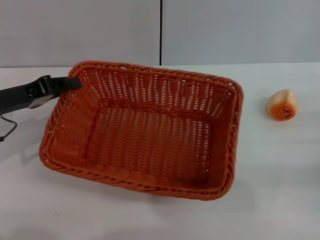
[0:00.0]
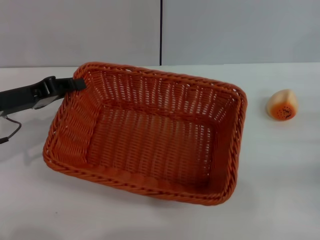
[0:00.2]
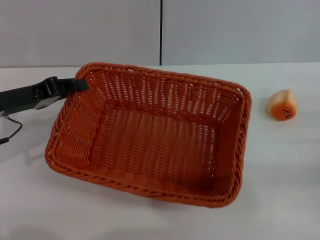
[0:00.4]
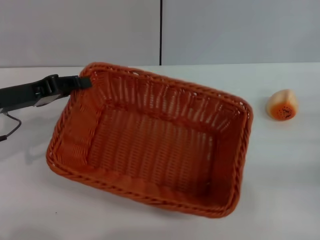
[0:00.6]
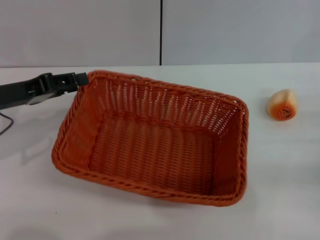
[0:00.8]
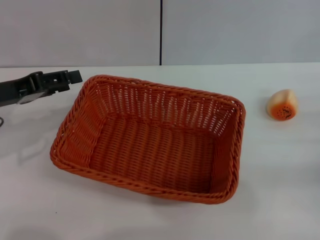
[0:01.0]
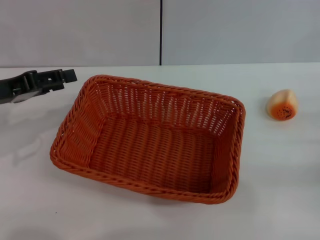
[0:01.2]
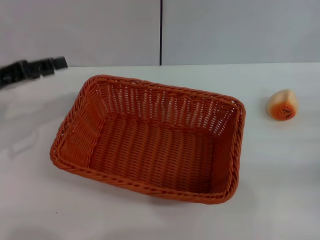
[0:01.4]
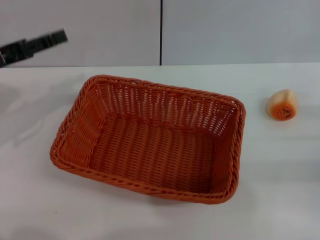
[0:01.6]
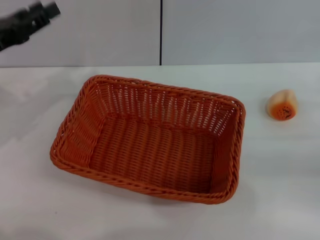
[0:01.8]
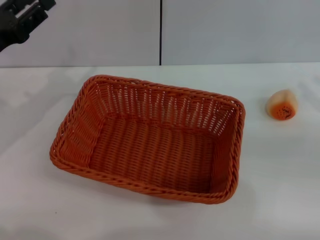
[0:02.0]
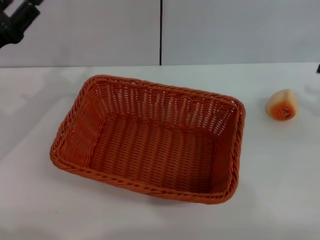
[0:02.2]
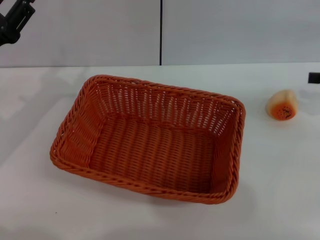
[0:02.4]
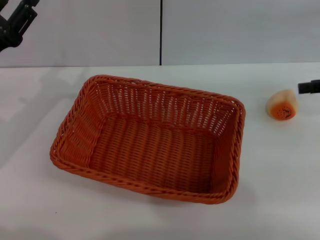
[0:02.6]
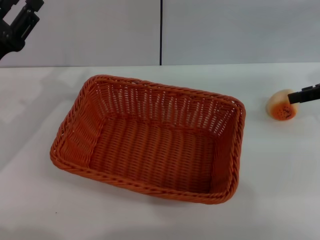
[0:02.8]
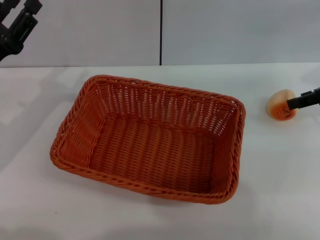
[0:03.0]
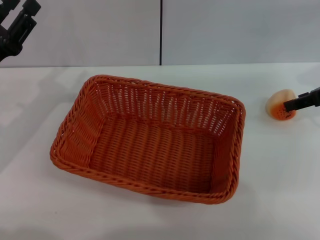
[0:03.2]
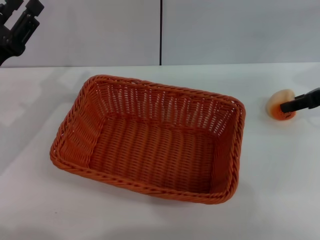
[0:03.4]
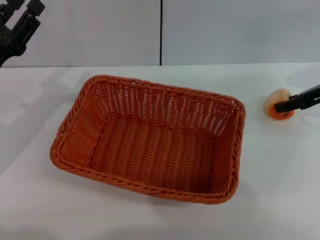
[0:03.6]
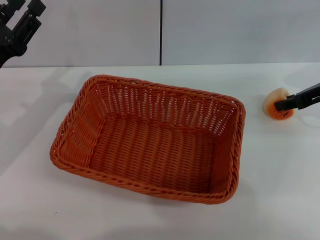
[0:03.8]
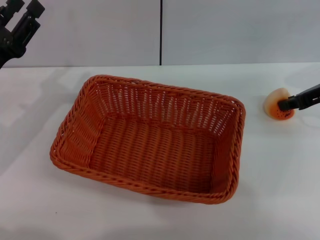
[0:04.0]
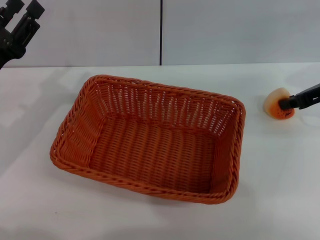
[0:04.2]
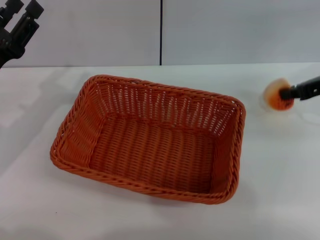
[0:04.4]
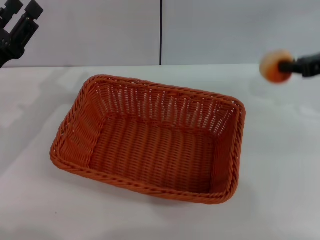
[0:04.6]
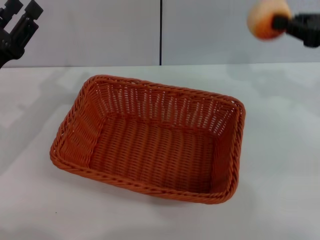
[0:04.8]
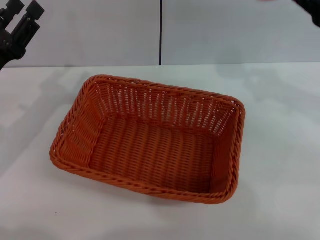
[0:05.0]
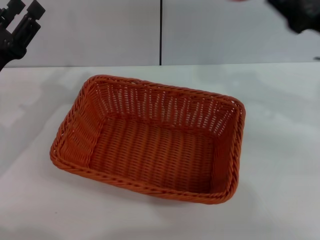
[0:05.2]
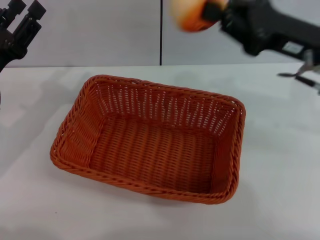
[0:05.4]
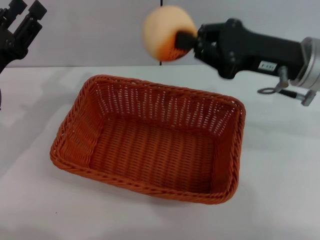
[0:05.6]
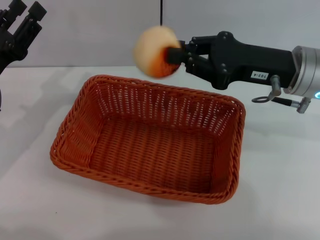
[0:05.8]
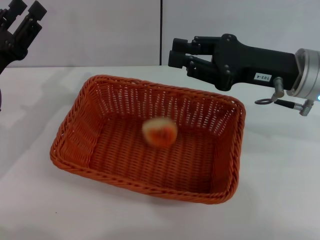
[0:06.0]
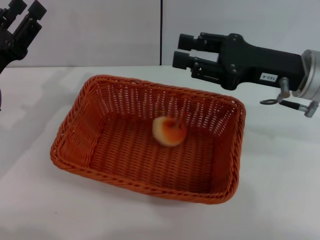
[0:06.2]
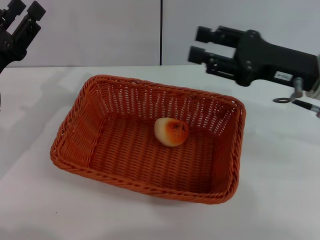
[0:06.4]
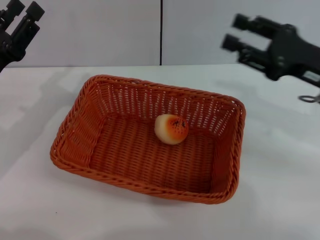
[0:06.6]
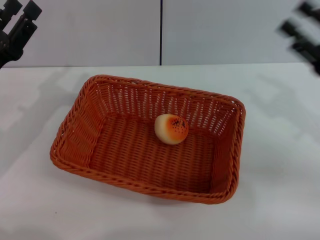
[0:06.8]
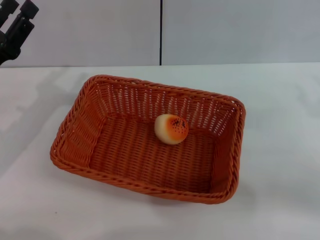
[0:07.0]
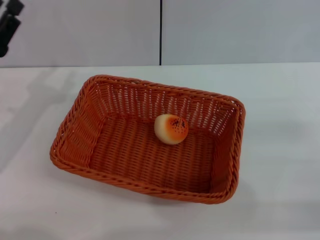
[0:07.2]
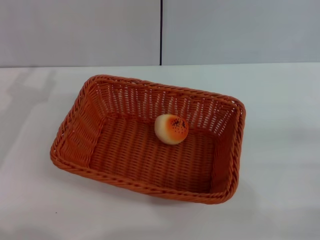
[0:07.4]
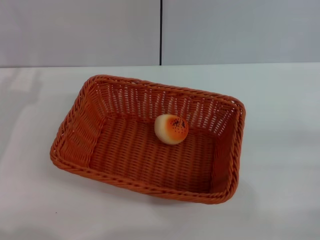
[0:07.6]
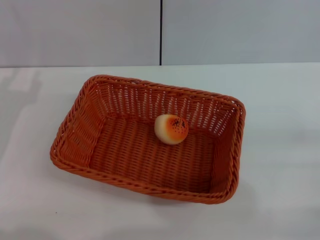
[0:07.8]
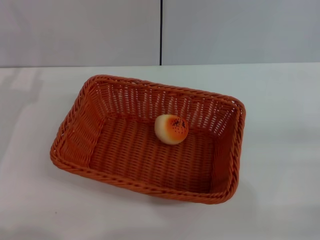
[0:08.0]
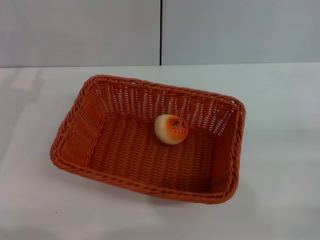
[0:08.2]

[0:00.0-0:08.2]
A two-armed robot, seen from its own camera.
Step, 1.0 to 4.0 s: Grasp egg yolk pastry with right gripper.
Step, 4.4 to 6.0 s: Place the egg yolk pastry in the basket with right gripper.
0.0 to 1.6 s: The left gripper opens.
1.6 to 3.2 s: The right gripper travels forward and upward by some 15 cm, while the left gripper goes about 5 cm downward.
3.2 to 5.0 s: The right gripper heads backward, covering roughly 5 cm, and closes up.
5.0 to 6.6 s: The right gripper travels downward by some 5 cm, moves about 10 cm to the left and comes back, and opens up.
6.6 to 8.2 s: The right gripper heads backward, to the right and downward, covering approximately 15 cm.

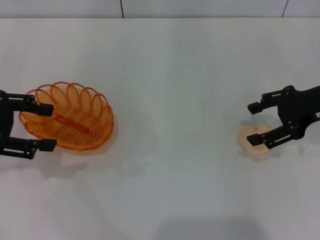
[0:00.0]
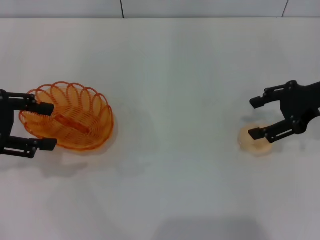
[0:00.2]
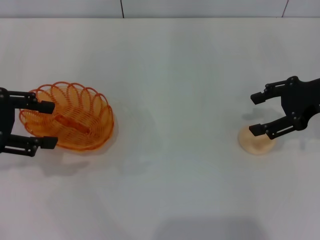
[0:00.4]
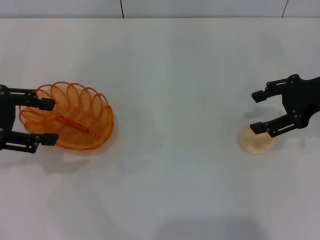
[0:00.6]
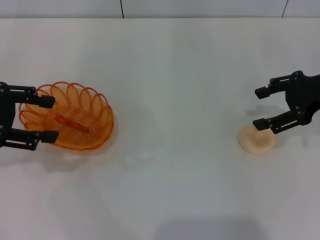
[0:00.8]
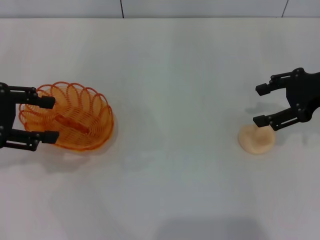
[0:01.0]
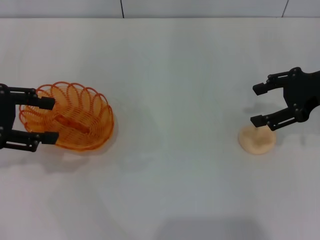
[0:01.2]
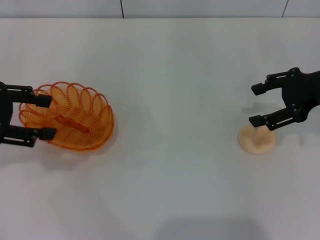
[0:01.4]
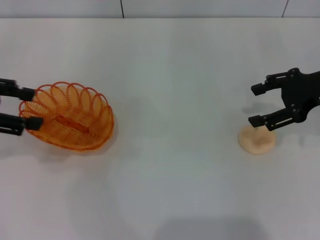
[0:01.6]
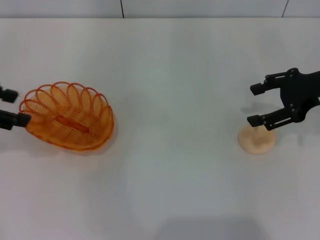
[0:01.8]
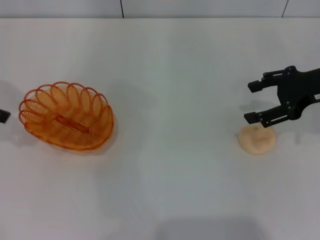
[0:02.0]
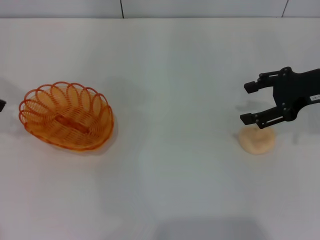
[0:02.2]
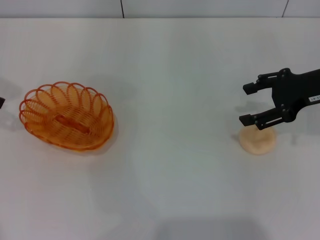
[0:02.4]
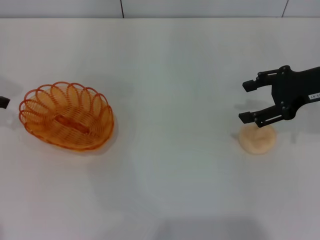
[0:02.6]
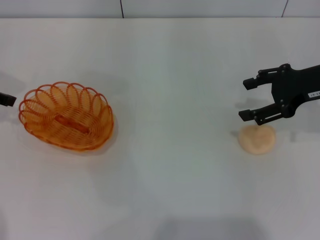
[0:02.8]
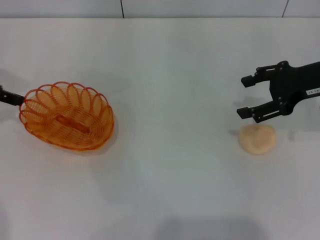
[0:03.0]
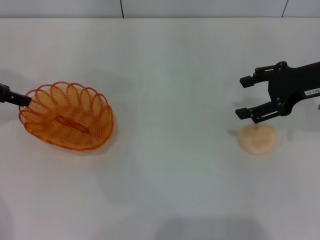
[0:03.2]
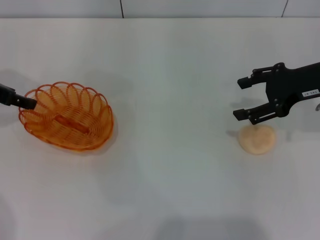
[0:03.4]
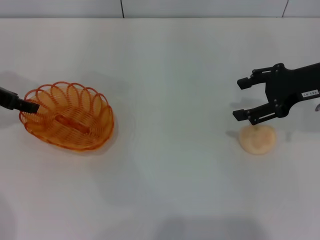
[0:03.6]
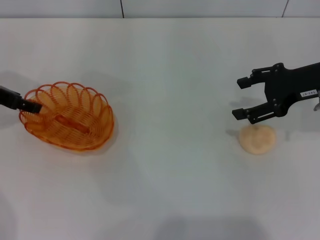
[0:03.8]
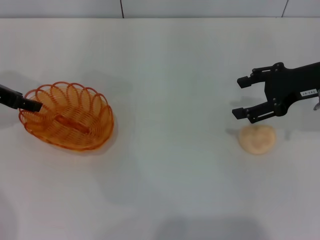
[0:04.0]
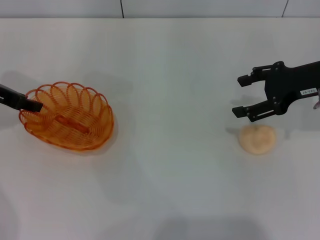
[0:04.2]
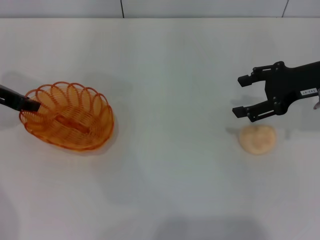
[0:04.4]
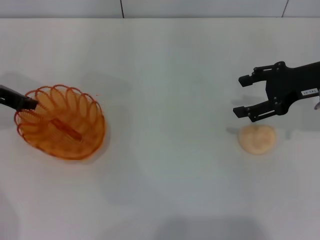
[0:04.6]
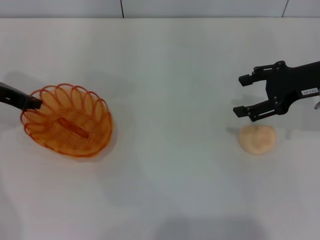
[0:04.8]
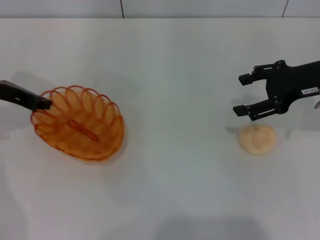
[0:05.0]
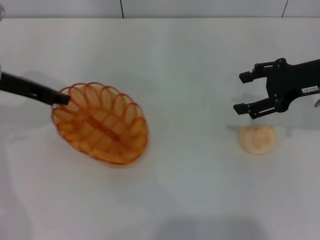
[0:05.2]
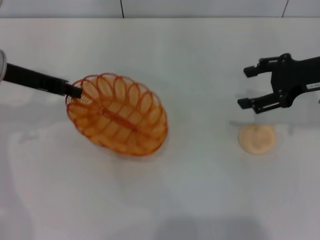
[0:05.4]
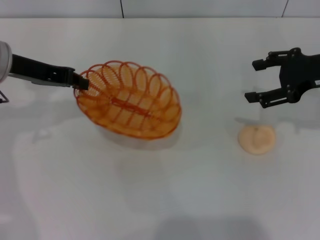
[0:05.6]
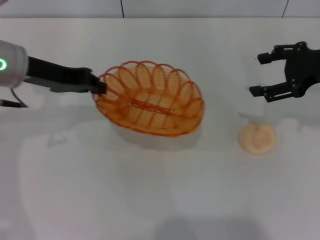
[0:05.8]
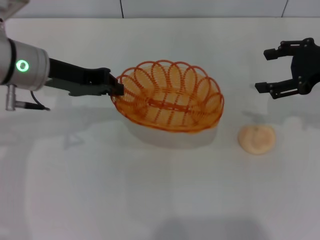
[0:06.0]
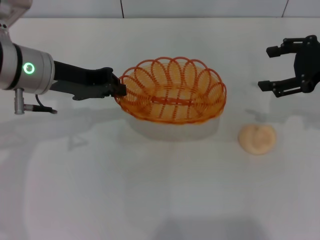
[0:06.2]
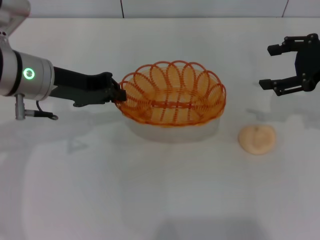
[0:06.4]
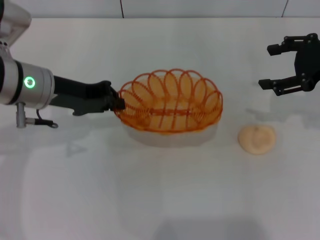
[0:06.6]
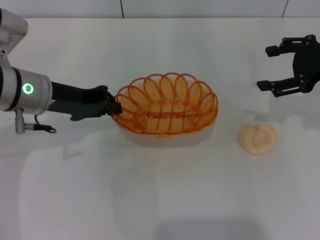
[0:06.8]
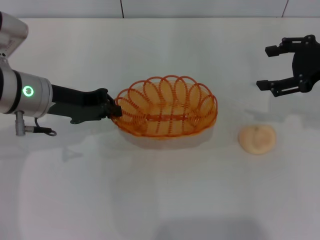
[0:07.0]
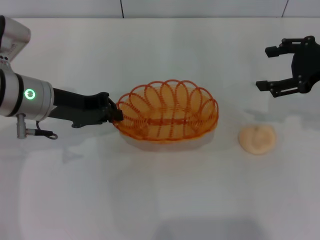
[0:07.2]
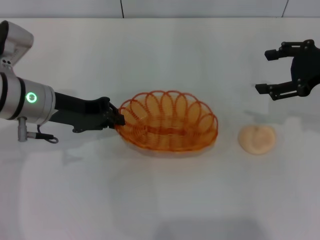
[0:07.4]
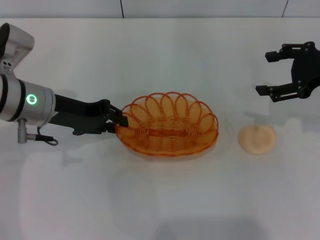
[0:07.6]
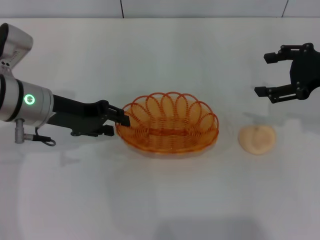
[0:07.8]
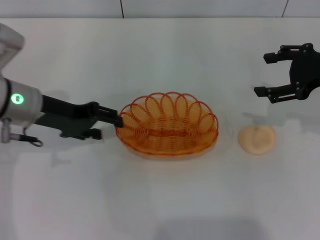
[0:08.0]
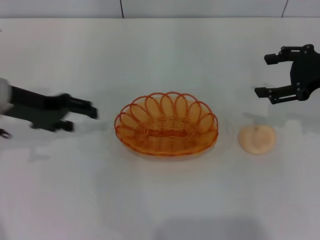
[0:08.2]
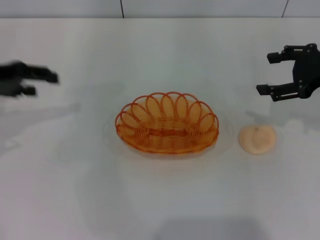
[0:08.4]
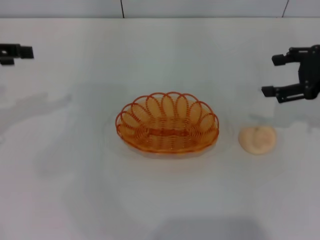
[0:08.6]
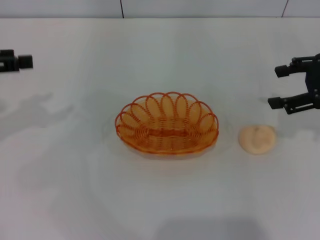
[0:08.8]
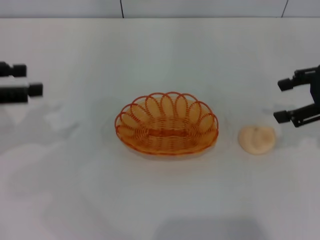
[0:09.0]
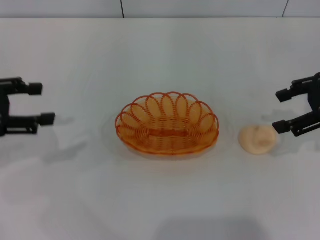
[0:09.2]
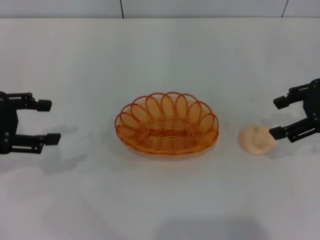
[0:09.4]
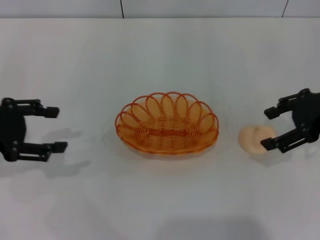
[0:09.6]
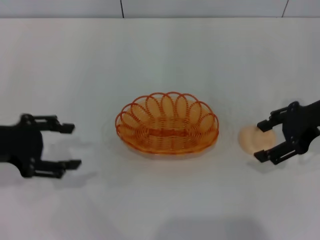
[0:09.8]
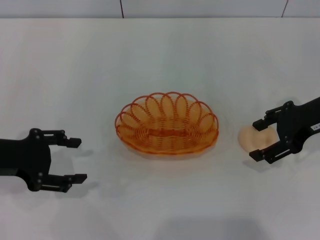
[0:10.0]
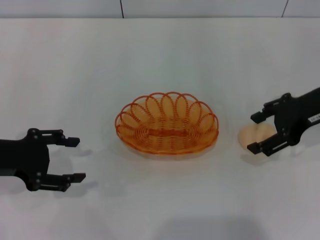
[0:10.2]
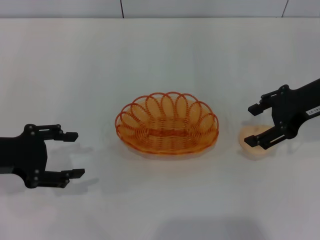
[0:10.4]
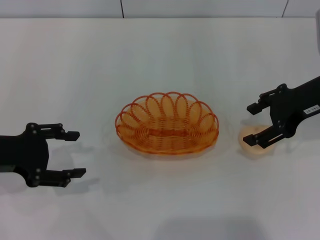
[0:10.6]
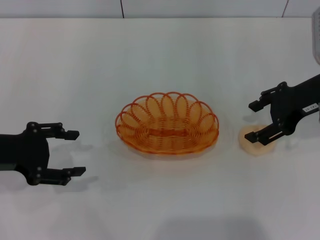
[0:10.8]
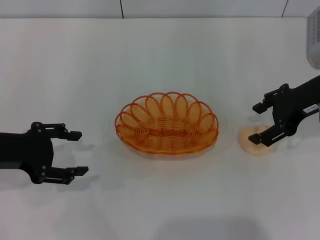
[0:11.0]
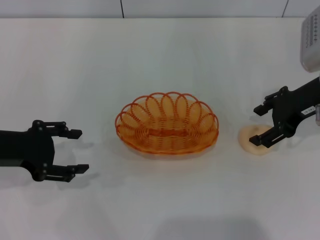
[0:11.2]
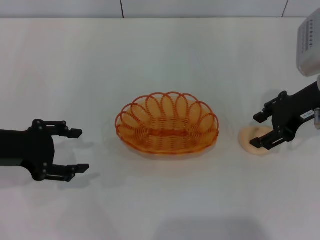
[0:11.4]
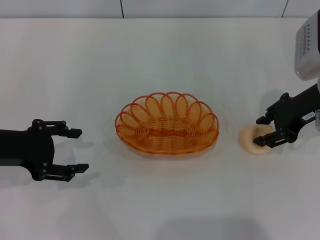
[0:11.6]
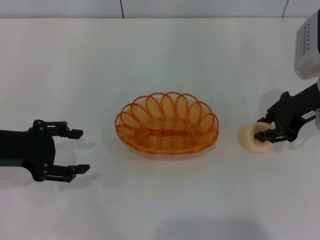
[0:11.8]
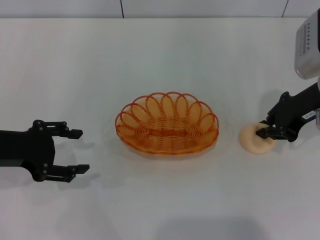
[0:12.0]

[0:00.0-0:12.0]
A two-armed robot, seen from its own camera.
Step, 0.0 to 5.8 s: Pick up the basket with the left gripper.
Step, 6.0 to 8.2 s: Place the basket in the center of view with the left gripper.
0.0 to 1.6 s: The grippers stay close to where they were, moving slightly.
1.6 to 3.0 s: The left gripper goes about 10 cm forward.
3.0 to 4.4 s: The grippers make only small movements.
4.4 to 6.0 s: The left gripper travels to the right by some 10 cm, and closes up.
6.0 to 7.6 s: The left gripper ends up roughly 5 cm from where it was.
7.6 to 9.0 s: The left gripper moves to the left and upward, roughly 15 cm, and opens.
9.0 to 10.4 s: The right gripper travels to the left by about 5 cm. The left gripper goes about 5 cm downward.
10.4 to 12.0 s: The right gripper closes.

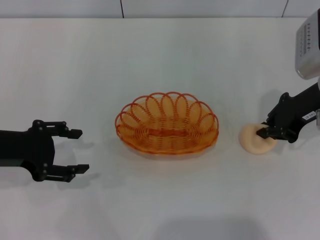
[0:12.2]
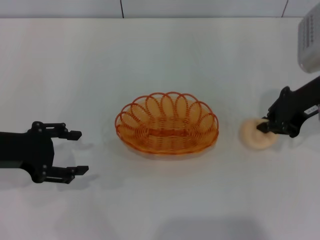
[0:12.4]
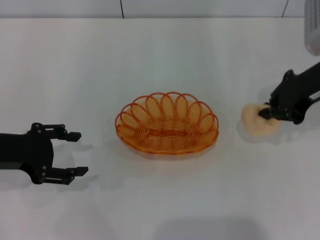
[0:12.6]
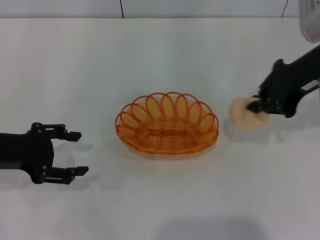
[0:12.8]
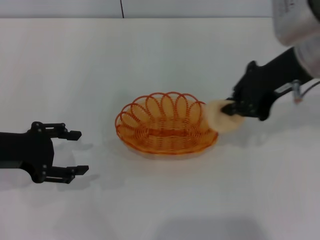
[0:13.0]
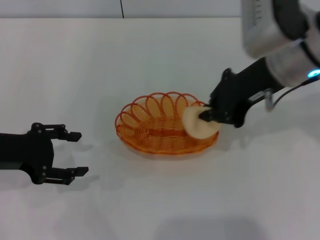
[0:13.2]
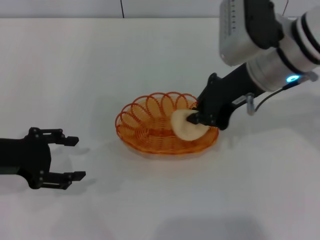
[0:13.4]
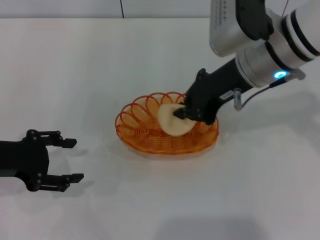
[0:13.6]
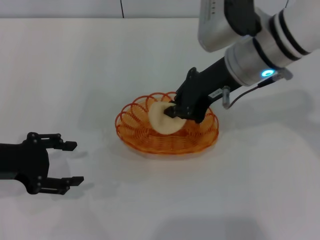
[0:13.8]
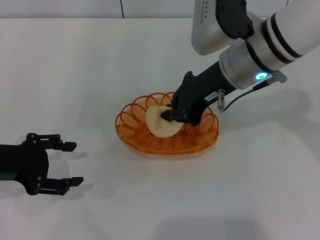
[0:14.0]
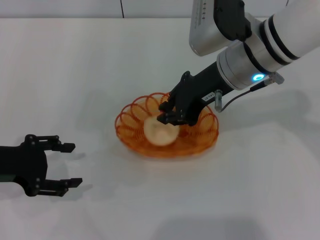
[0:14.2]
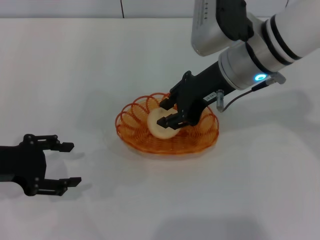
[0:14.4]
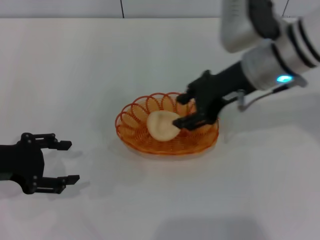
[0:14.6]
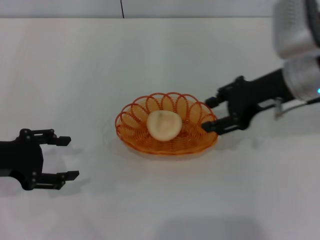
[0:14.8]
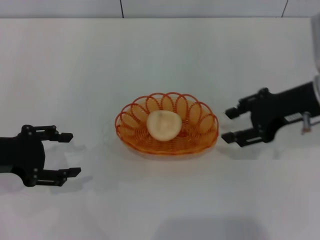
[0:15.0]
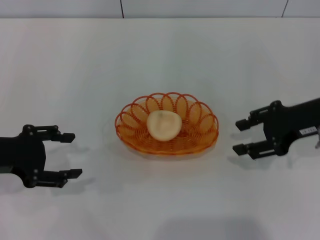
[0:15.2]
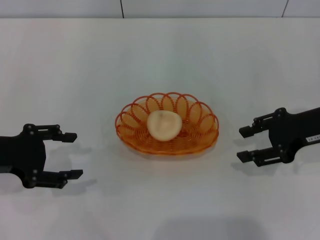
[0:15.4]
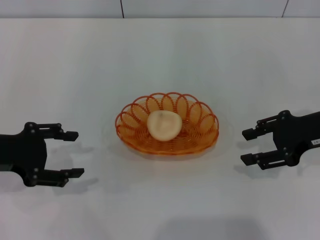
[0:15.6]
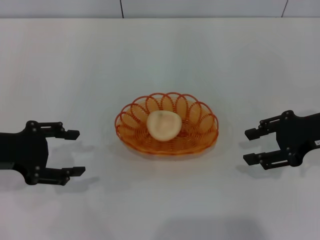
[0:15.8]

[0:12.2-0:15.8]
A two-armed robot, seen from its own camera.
Step, 12.8 to 14.8 s: Place the egg yolk pastry into the basket with the right gripper.
12.2 to 14.0 s: The right gripper shifts approximately 15 cm to the left.
14.0 to 15.8 s: The right gripper moves to the right, some 15 cm, and opens its fingers.
